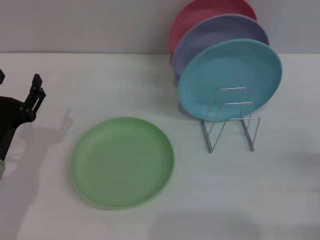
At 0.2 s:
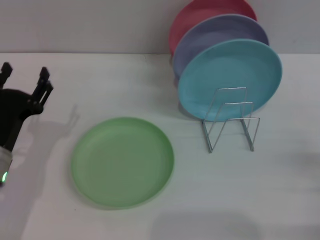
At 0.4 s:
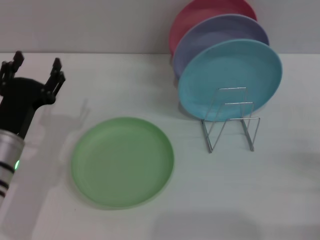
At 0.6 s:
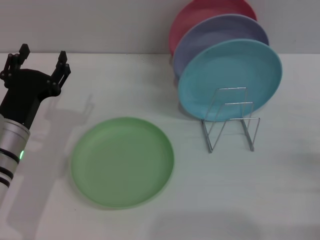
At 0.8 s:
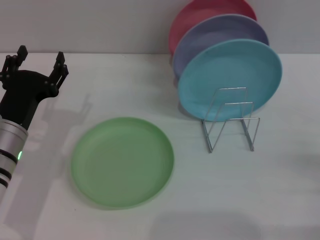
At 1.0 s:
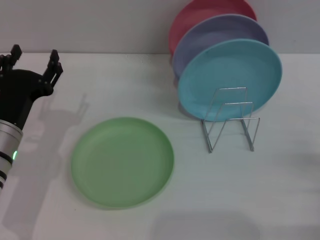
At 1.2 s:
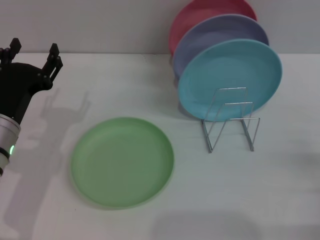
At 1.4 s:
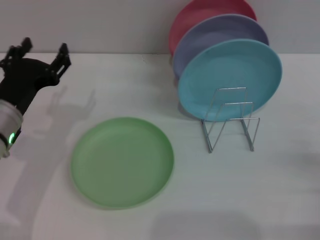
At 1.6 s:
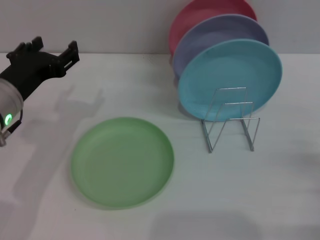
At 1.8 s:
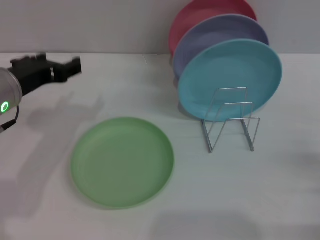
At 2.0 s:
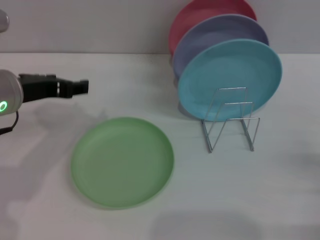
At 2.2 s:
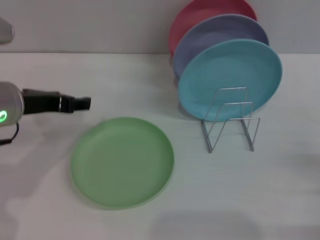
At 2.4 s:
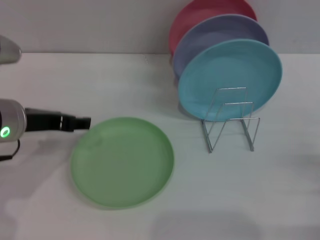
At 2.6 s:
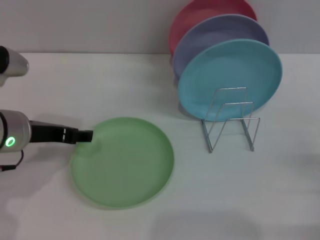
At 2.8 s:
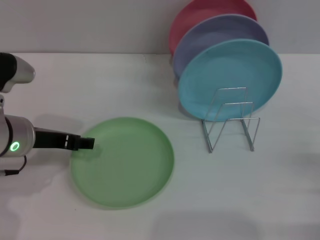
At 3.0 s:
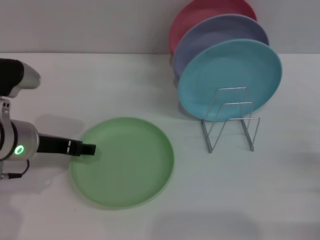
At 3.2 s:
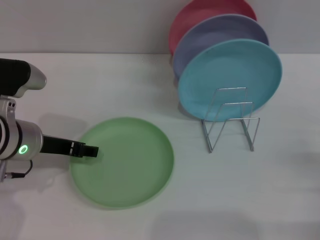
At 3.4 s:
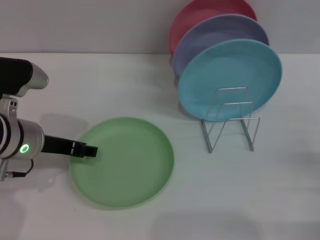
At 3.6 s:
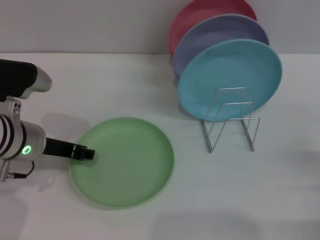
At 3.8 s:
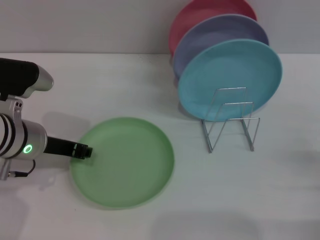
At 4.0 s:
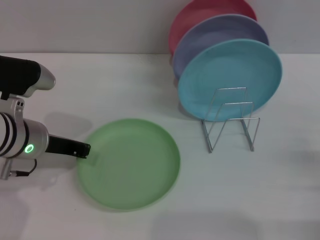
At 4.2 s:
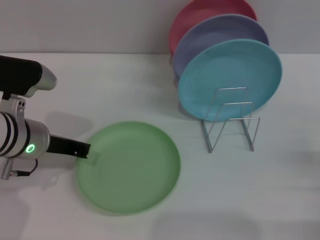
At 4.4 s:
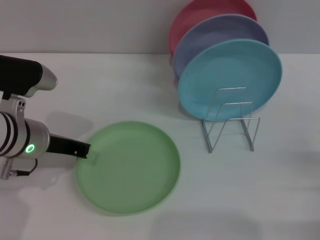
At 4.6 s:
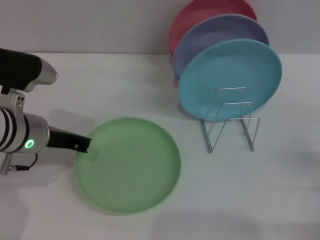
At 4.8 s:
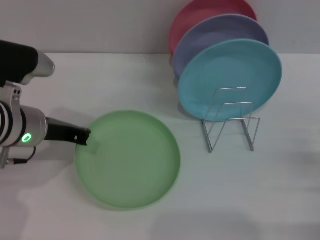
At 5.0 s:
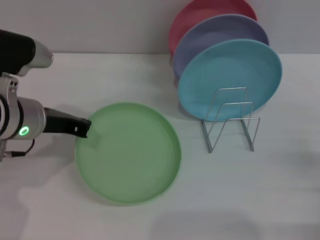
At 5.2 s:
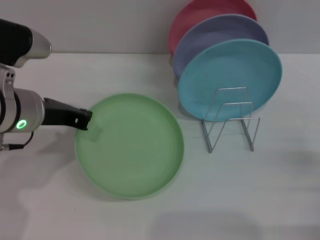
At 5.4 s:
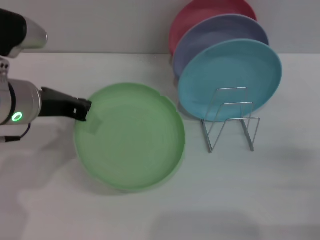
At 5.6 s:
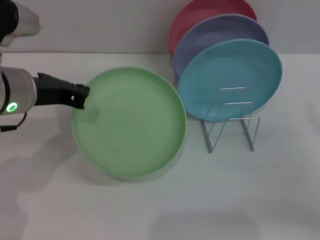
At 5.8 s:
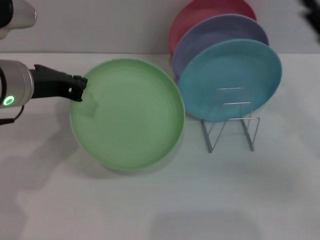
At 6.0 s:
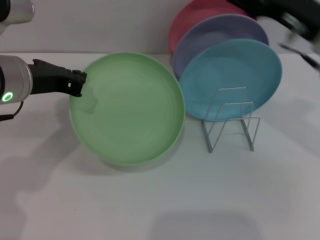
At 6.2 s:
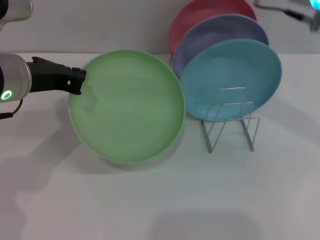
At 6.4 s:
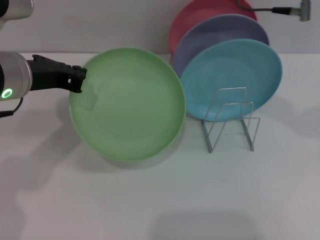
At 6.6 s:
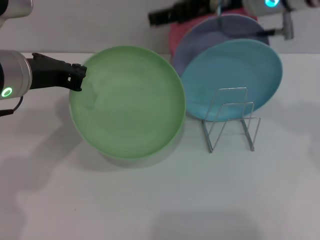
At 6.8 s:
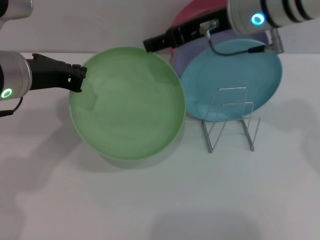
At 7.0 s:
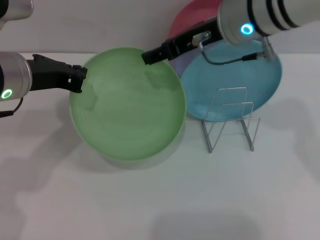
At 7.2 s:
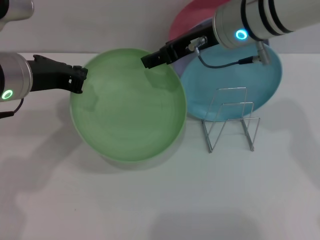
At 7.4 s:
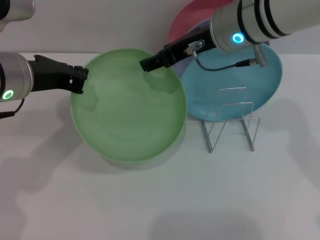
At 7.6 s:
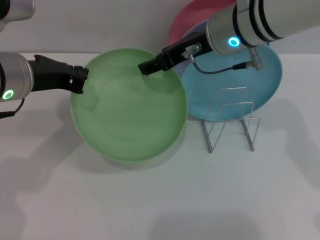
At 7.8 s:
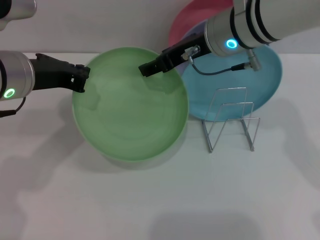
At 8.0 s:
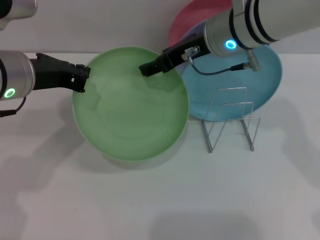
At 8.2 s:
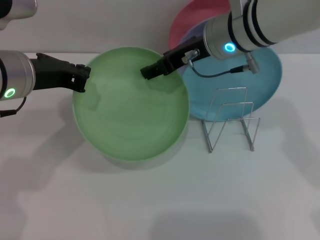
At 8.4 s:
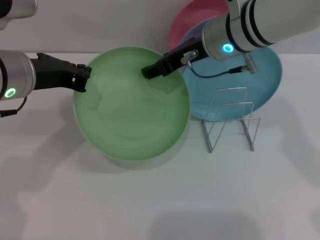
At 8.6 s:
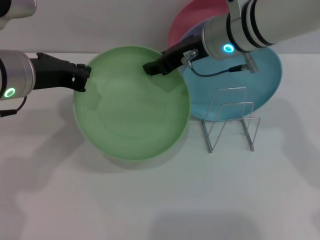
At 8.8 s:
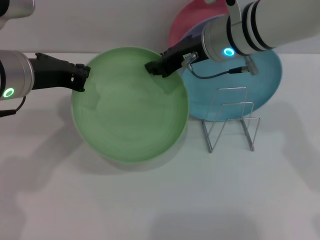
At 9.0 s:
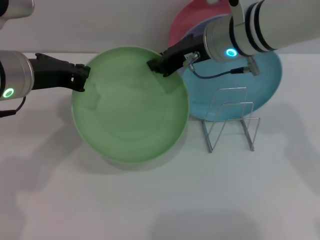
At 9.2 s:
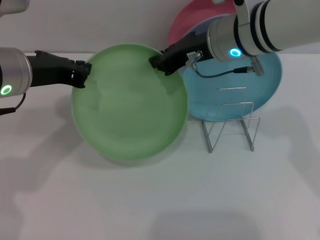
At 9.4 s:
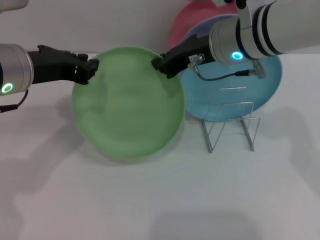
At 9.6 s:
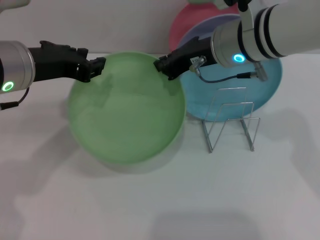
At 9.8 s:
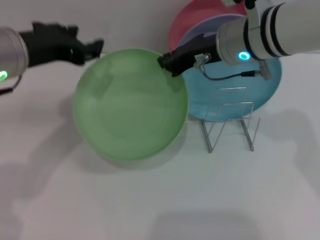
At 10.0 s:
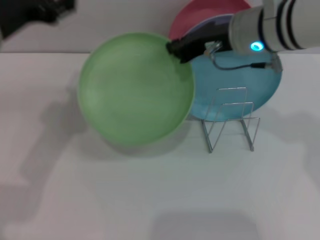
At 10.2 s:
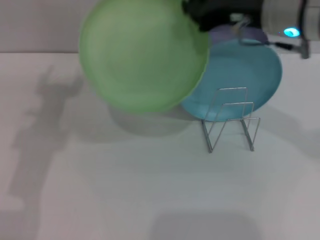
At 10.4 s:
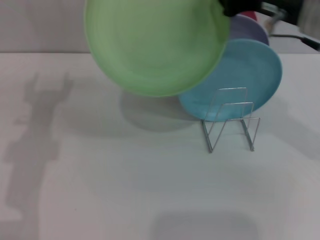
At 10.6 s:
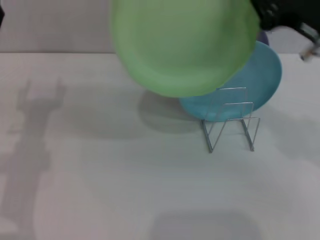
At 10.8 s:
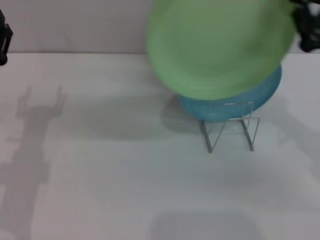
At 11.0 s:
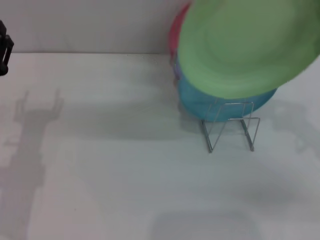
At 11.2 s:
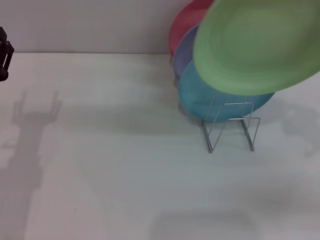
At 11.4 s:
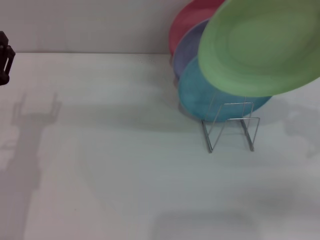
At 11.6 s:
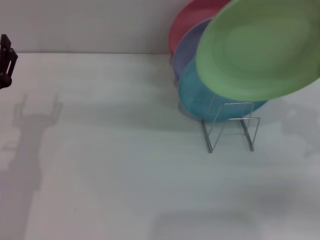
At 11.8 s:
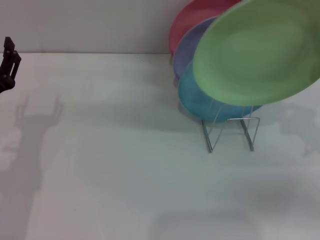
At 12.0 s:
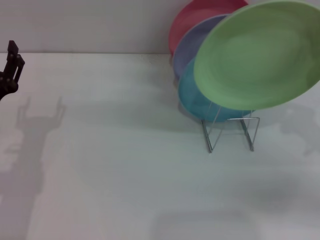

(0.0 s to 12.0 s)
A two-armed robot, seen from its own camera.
Task of the whole recording: Grip the plate with one hand, pass it to the other, then set it on the shelf.
Step, 0.0 s - 5.6 s: Pick up the plate with the left gripper.
Step, 5.8 s - 9.6 s: Pass the plate from the left gripper to the right gripper.
0.0 s - 1.6 s: The left gripper is displaced upward by some 10 cm.
3.0 s - 4.4 s: The left gripper closes.
4.4 s - 6.0 s: The right gripper travels upward, forward and to the left by approximately 25 cm. Meanwhile the left gripper is displaced upward by approximately 10 cm.
6.0 s - 7.6 s: The right gripper moves to the left, about 10 cm.
7.6 s - 9.0 s: The right gripper closes.
9.0 s - 10.4 s: The right gripper travels to the right and backward by about 10 cm; the left gripper changes place by approximately 5 cm, and opens its fingers.
10.4 s - 12.0 s: The left gripper goes approximately 10 cm downward. The right gripper goes about 20 cm downward, to the right and backward.

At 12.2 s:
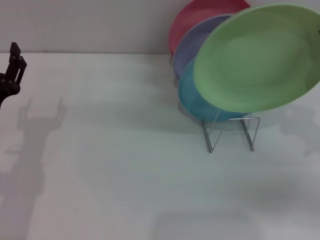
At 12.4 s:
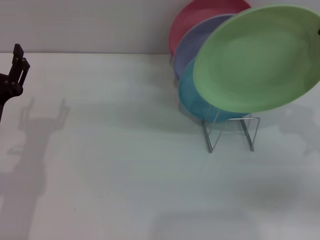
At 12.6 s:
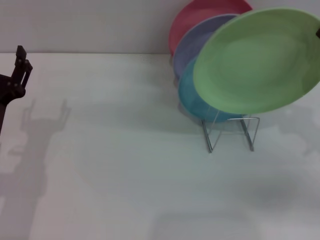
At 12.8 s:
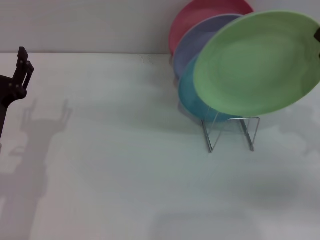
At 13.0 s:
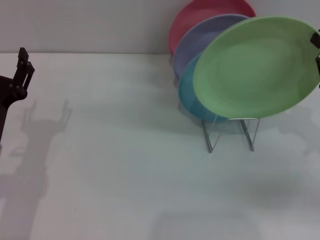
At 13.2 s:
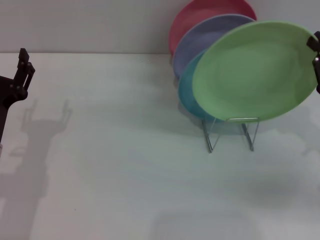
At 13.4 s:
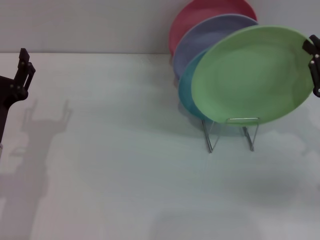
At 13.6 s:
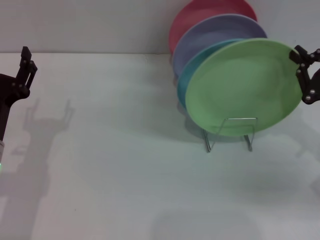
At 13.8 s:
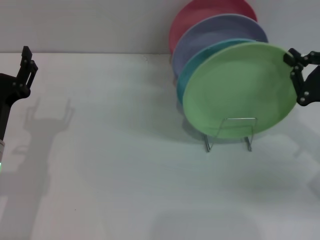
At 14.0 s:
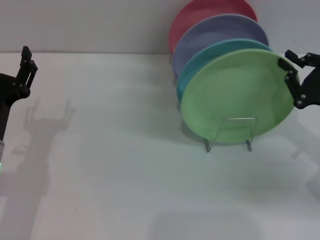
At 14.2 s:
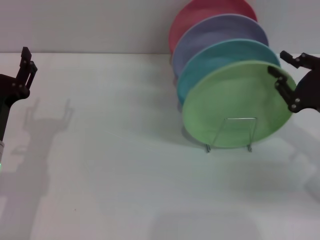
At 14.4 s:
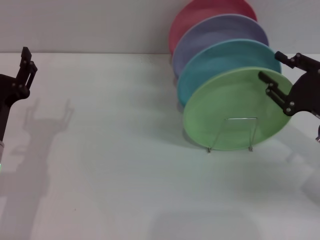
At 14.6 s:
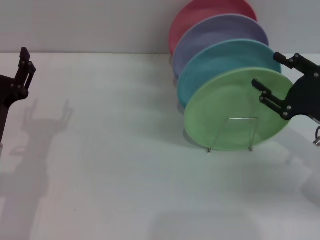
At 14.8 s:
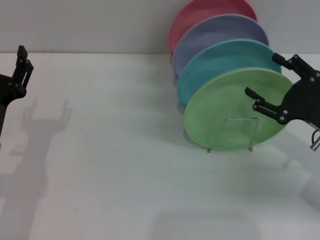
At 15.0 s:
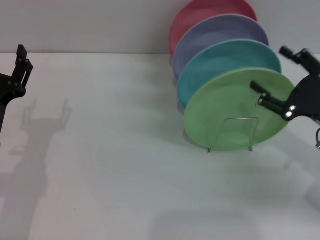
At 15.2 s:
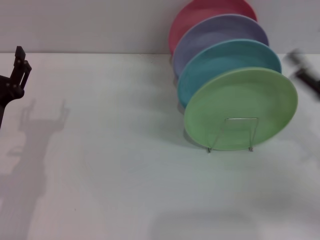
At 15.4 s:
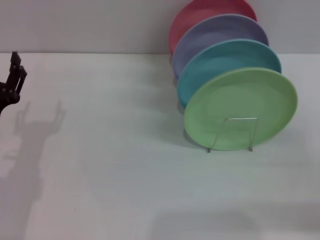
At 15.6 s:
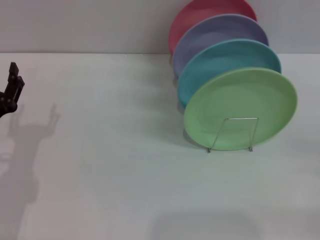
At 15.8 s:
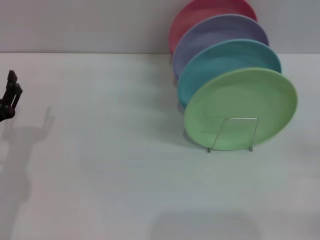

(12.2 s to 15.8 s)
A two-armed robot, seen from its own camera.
Task of the whole recording: Grip the plate with one hand, pass it to the other, then set it on the shelf.
Step, 12.2 s - 14.8 s: Place the plate on the shelf with the right gripper.
12.2 s - 14.0 s: The grippers make only small movements.
14.0 s - 15.8 s: The right gripper travels backward and to the right by about 10 cm, and opens up.
